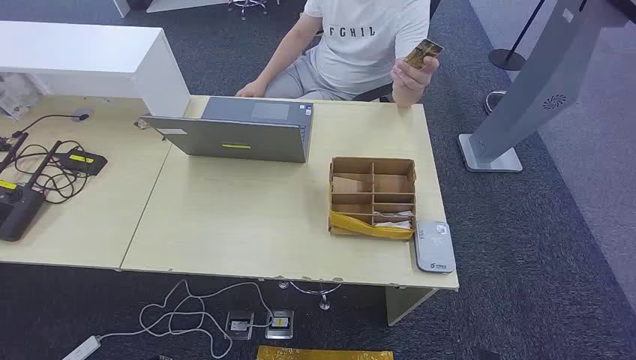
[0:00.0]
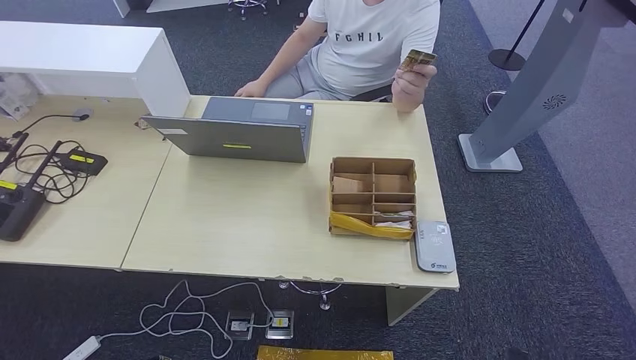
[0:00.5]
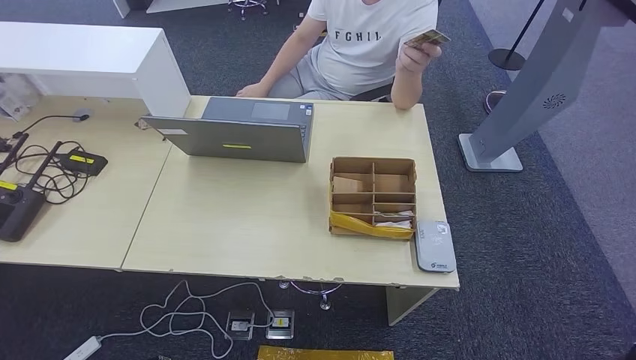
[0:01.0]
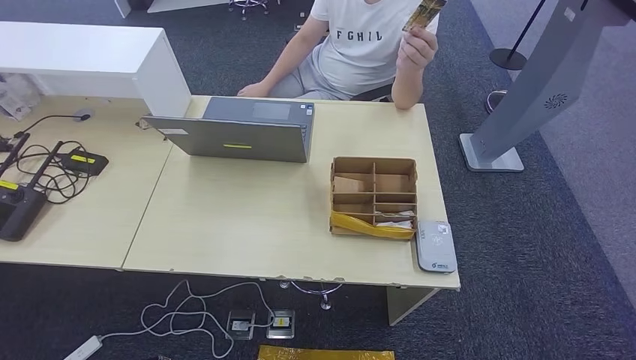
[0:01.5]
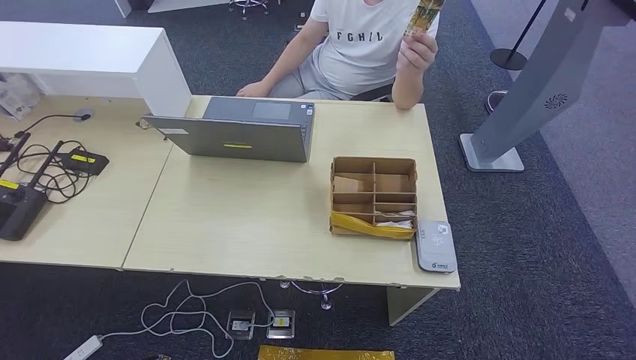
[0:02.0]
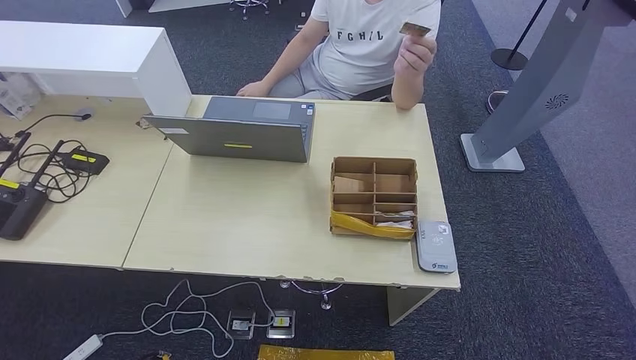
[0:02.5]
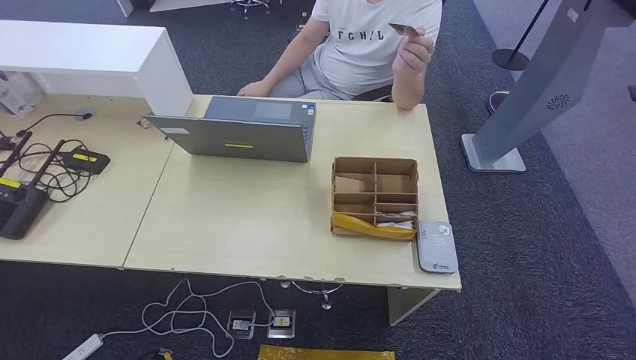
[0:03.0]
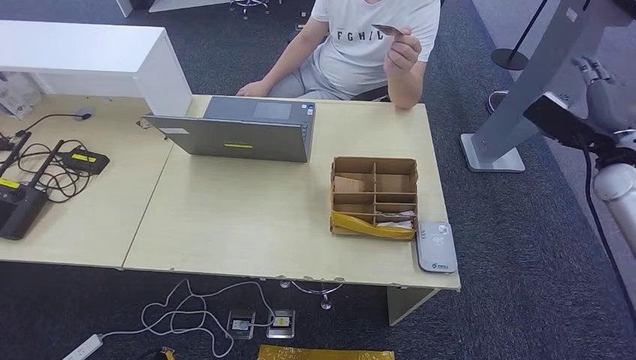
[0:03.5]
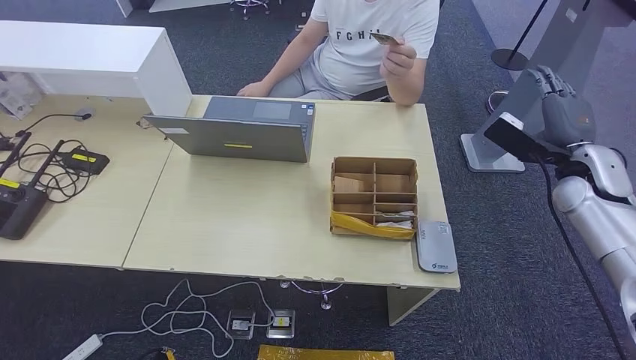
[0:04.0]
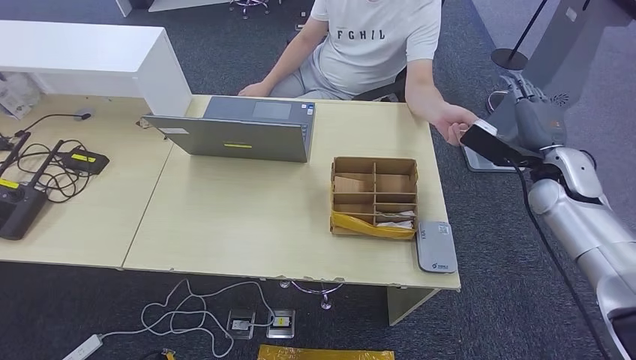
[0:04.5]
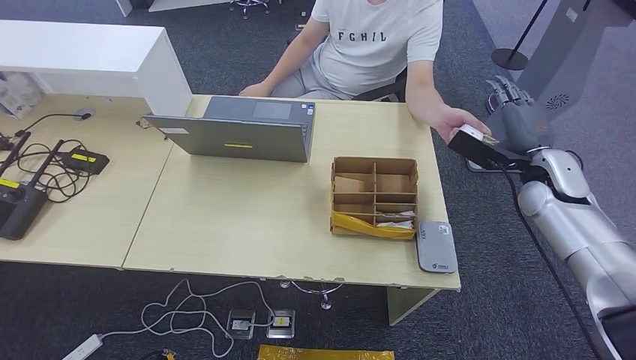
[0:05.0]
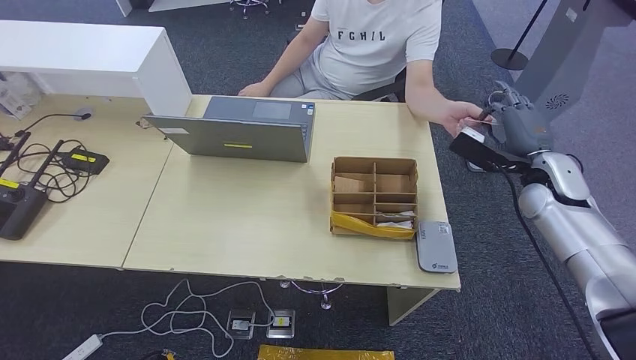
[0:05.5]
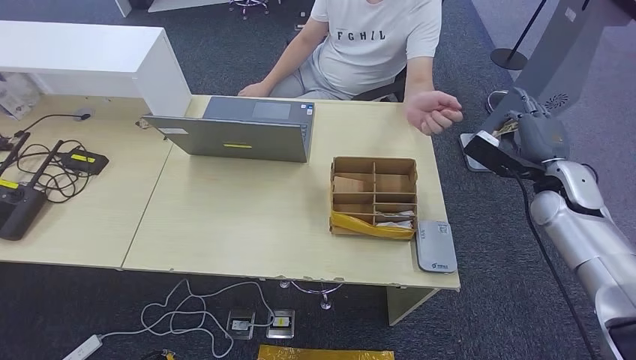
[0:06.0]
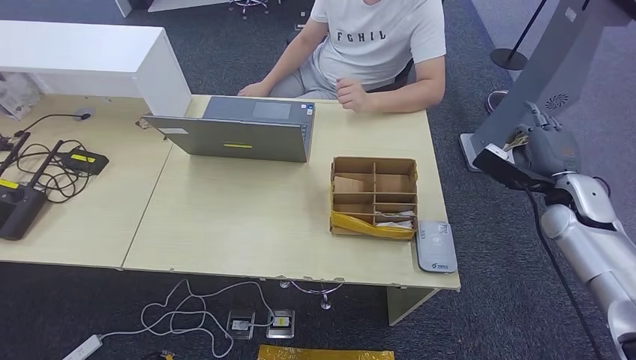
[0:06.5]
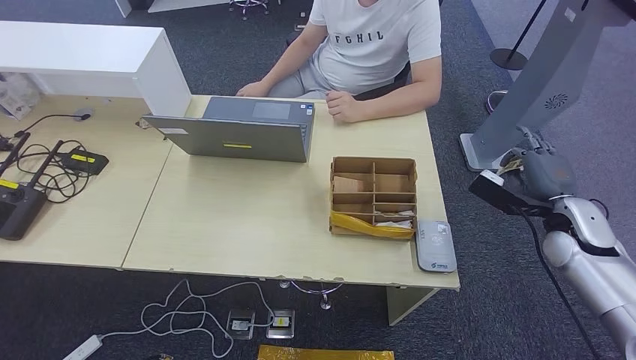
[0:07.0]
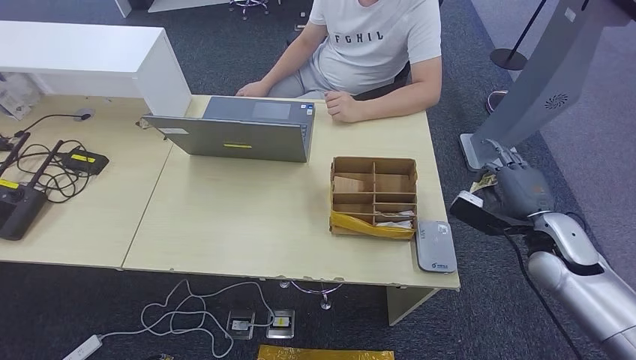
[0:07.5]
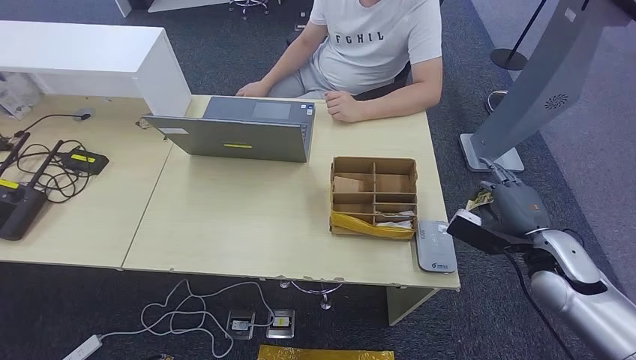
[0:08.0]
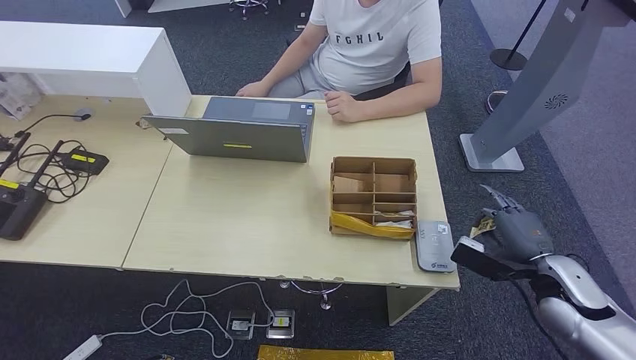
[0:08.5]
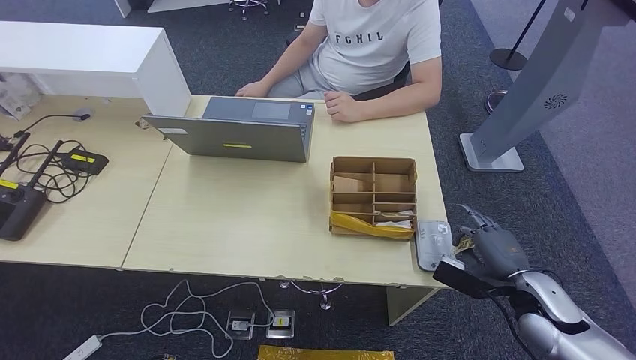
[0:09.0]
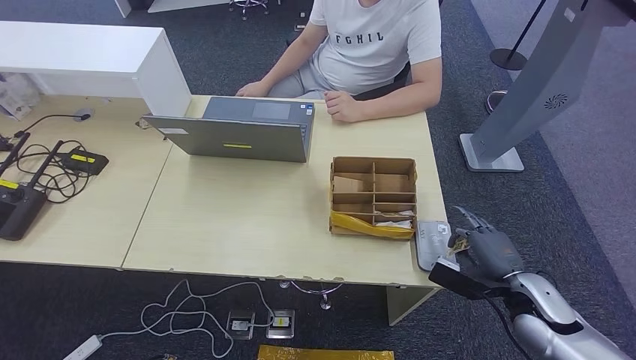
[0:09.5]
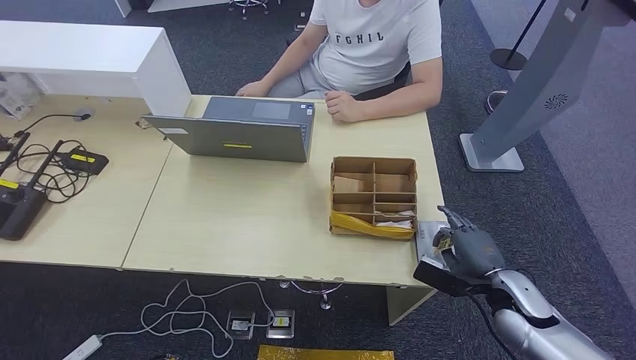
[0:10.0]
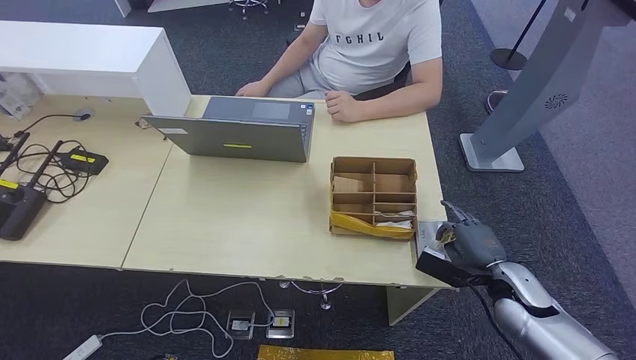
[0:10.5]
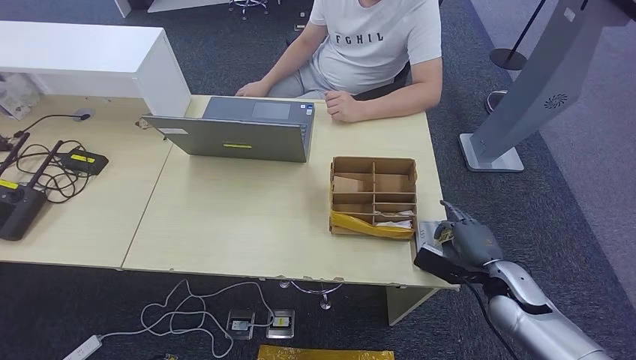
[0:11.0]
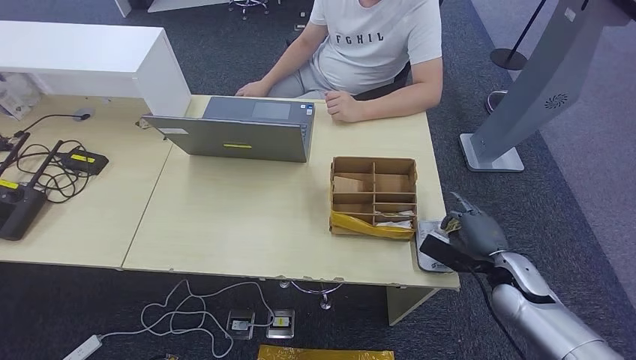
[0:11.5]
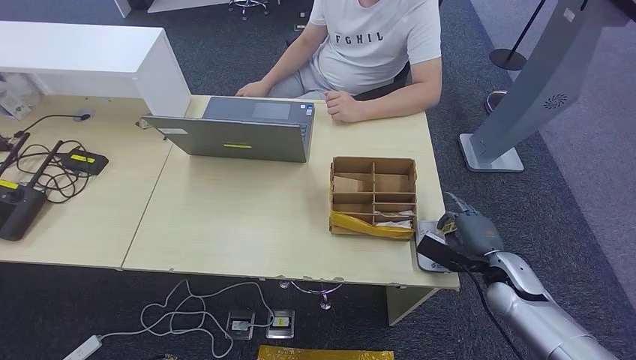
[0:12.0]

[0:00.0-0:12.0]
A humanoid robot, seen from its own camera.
Step, 0:00.0 to 0:07.0: Take the ID card from the person's hand.
Step, 0:07.5 to 0:10.0: Place the ID card on the card reader.
0:02.0 to 0:04.0: The right hand shifts about 30 cm to the left and forward.
0:04.0 to 0:06.0: There are only small adjustments of the hands.
0:06.0 to 0:08.0: The right hand travels backward and downward by some 15 cm.
0:08.0 to 0:10.0: The right hand heads downward, covering roughly 10 cm.
0:10.0 to 0:12.0: The hands move only a little.

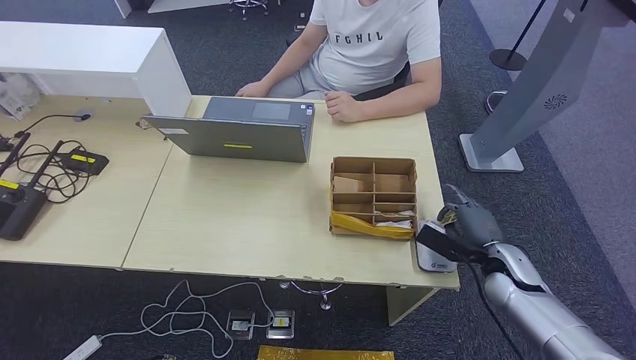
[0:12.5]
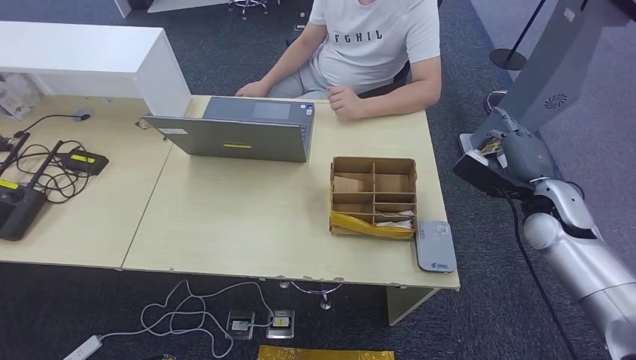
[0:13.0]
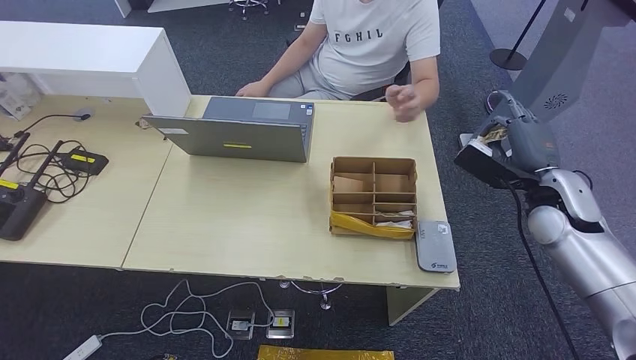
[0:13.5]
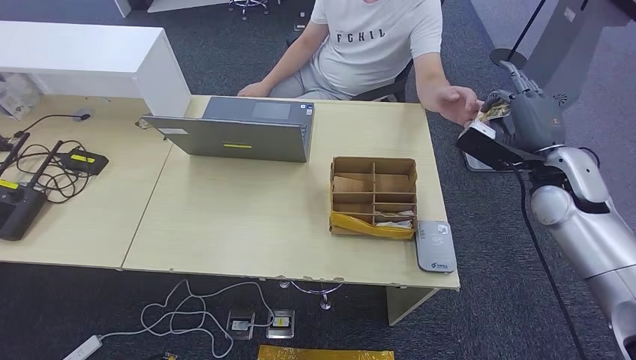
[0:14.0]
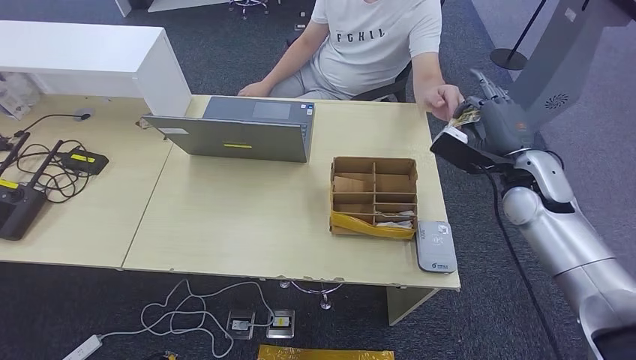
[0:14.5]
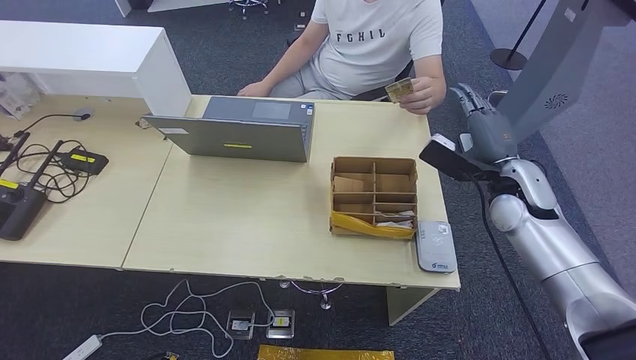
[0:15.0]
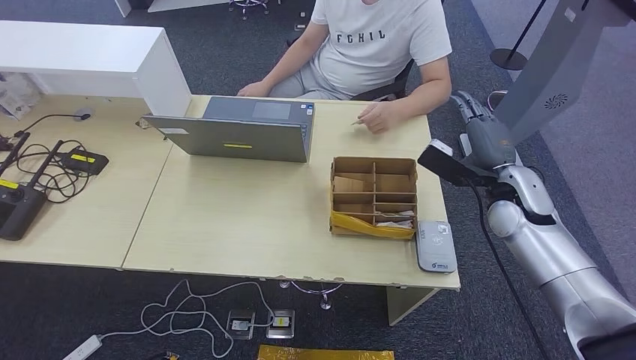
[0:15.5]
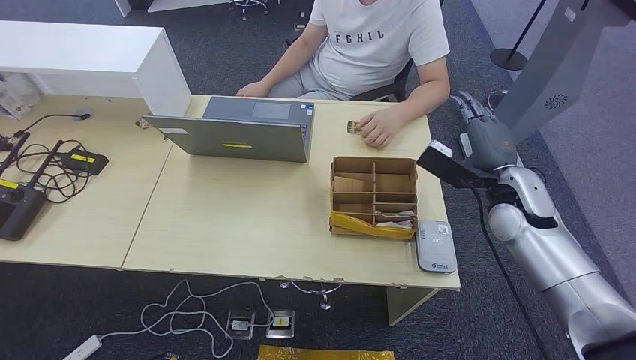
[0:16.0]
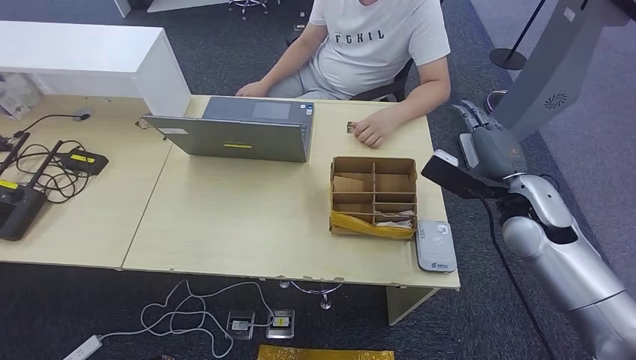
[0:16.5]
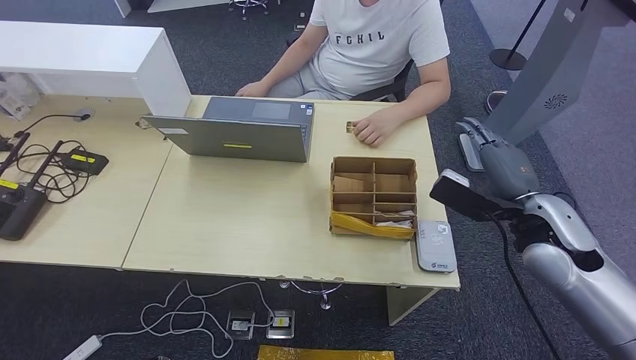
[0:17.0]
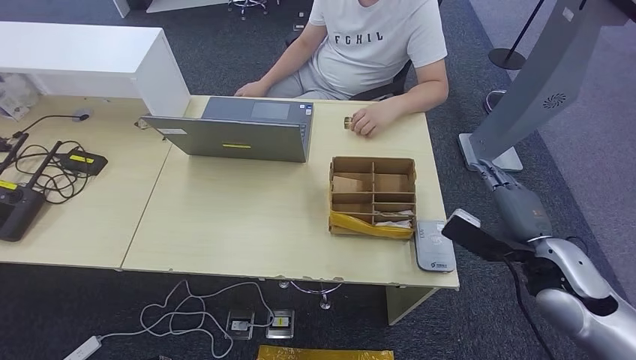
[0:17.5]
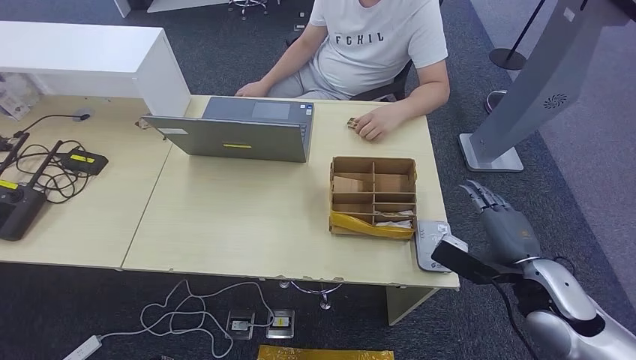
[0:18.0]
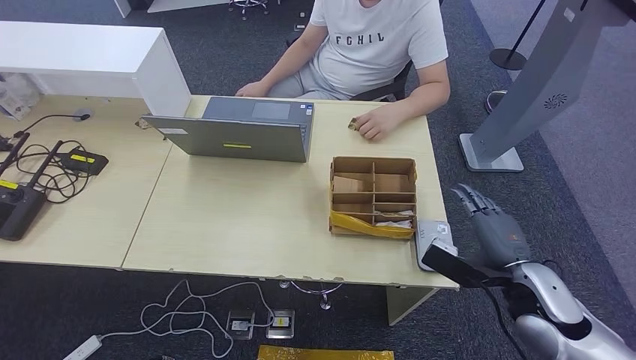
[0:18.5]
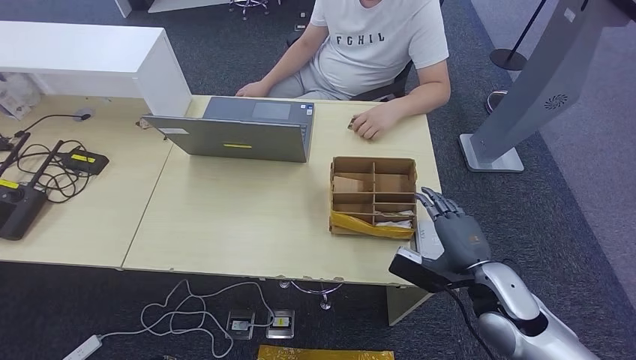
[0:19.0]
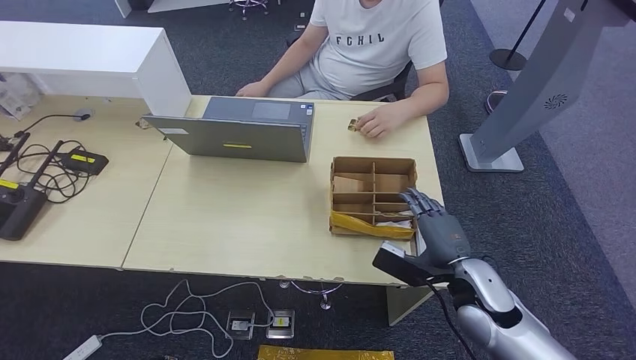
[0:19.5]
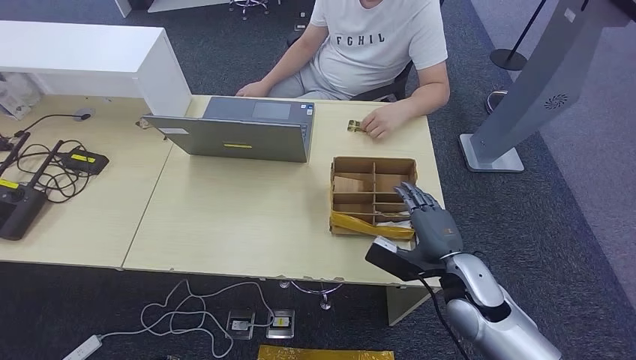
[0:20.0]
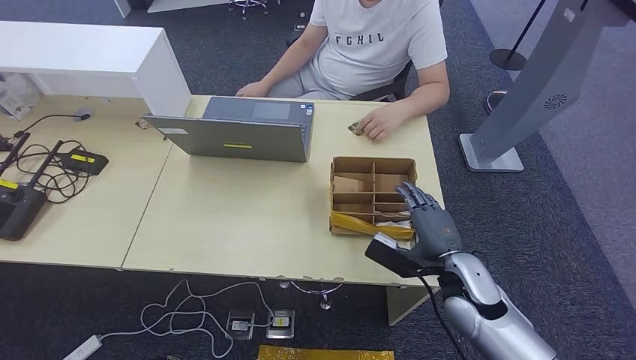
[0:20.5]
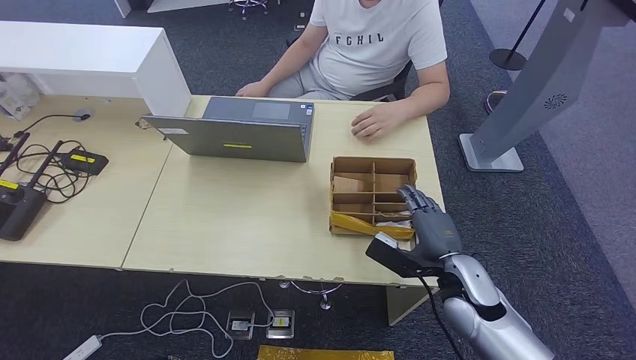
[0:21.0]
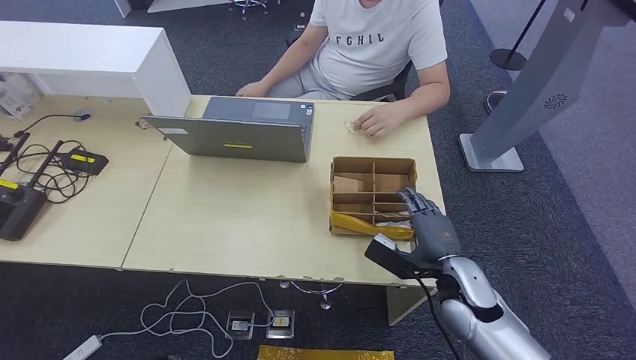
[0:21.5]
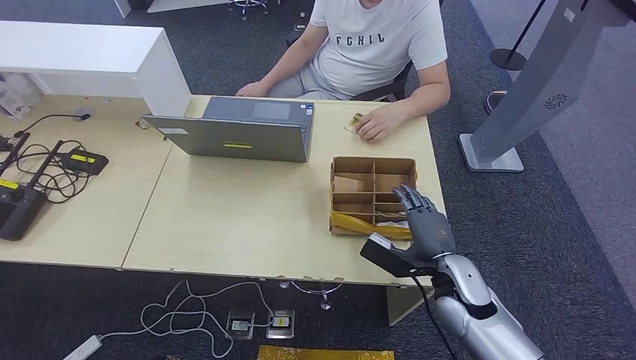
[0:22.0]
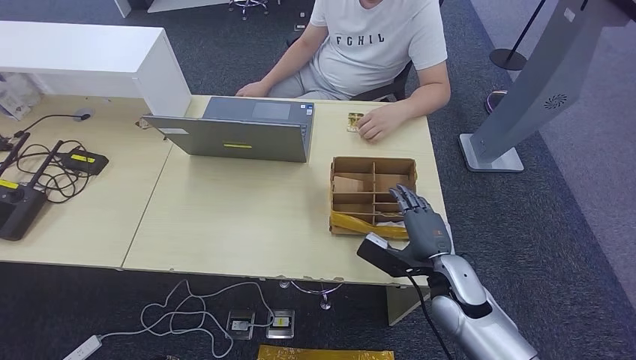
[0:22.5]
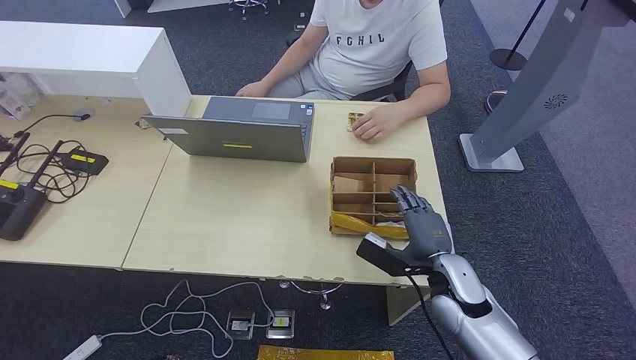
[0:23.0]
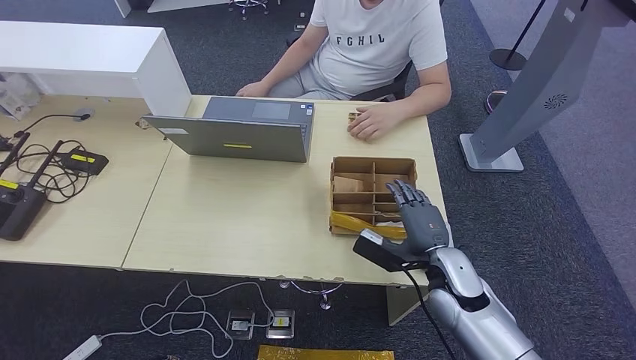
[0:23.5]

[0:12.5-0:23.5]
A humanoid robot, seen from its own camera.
0:12.5 to 0:14.5: The right hand shifts approximately 20 cm upward and forward.
0:14.5 to 0:16.0: The hands make only small movements.
0:16.0 to 0:18.0: The right hand shifts approximately 15 cm backward.
0:18.0 to 0:20.0: The right hand is displaced to the left by roughly 10 cm.
0:20.0 to 0:23.5: The hands make only small movements.
